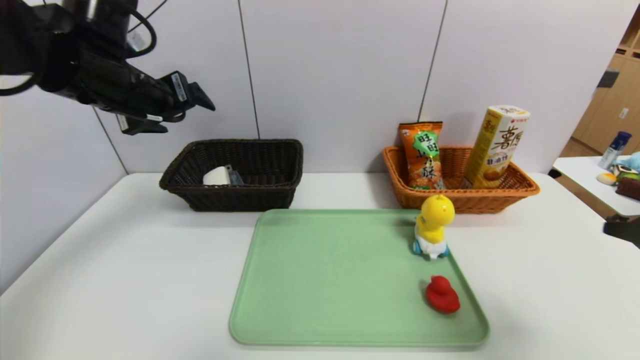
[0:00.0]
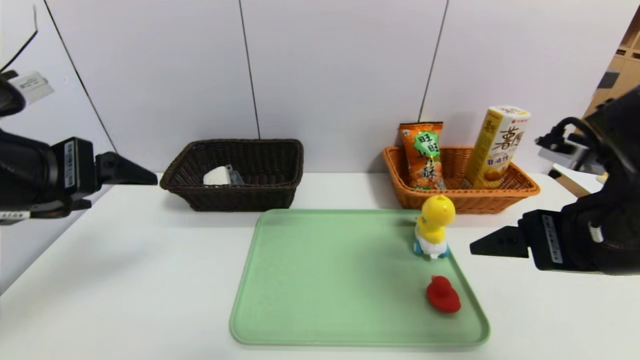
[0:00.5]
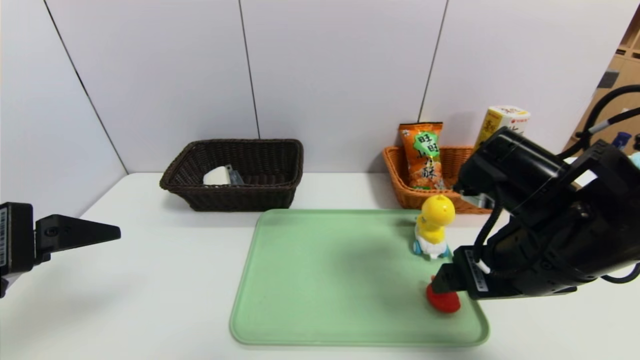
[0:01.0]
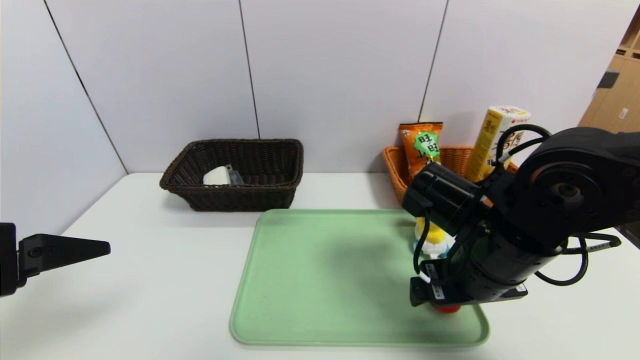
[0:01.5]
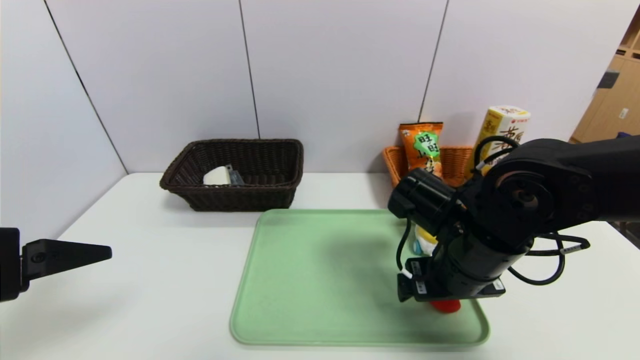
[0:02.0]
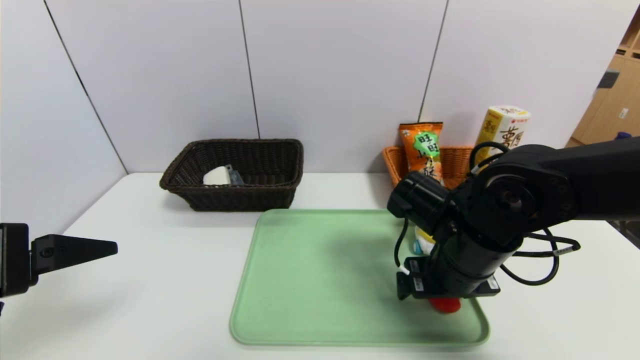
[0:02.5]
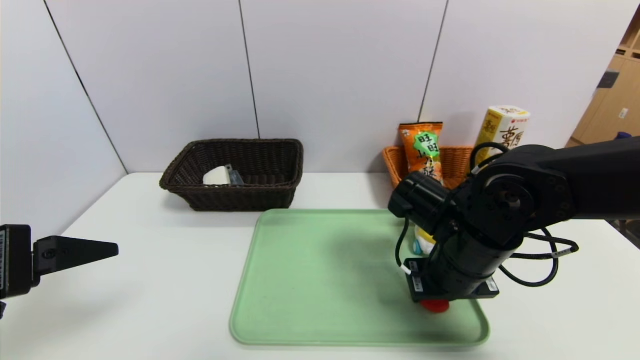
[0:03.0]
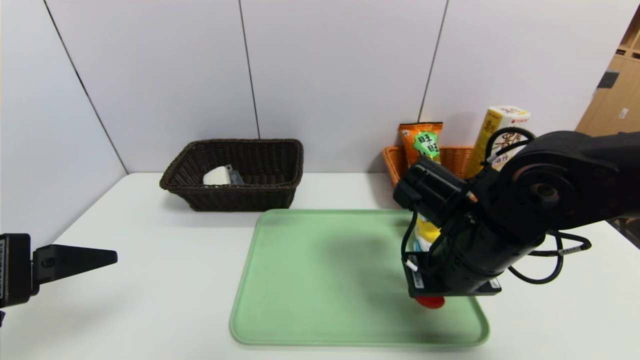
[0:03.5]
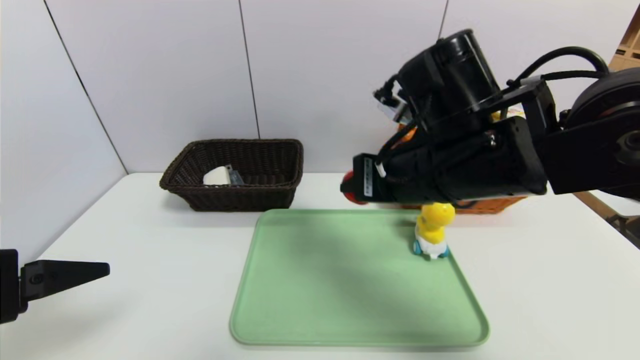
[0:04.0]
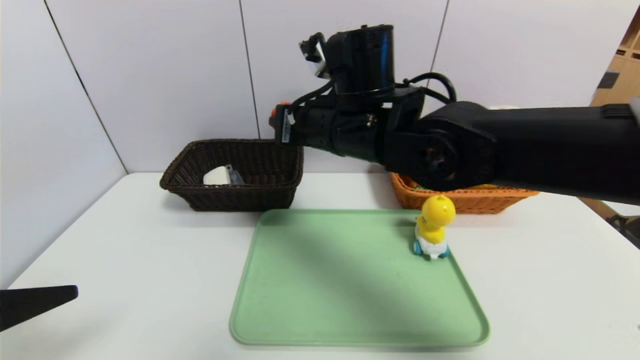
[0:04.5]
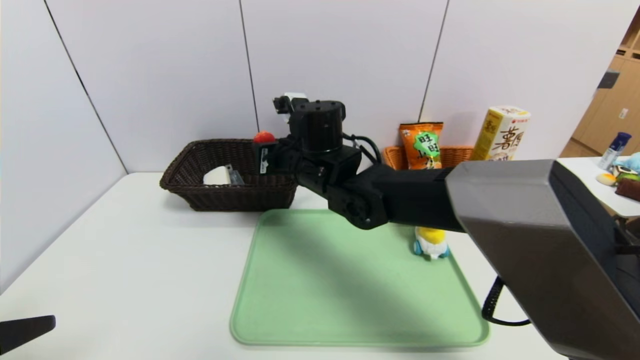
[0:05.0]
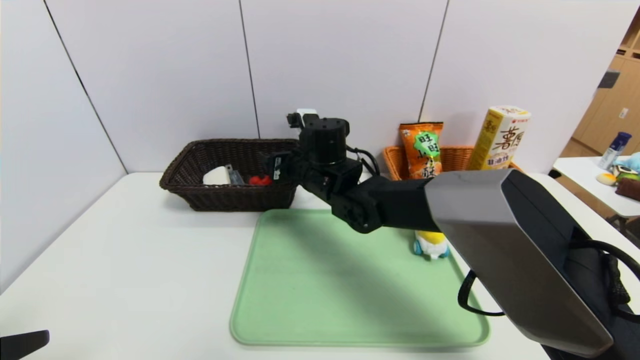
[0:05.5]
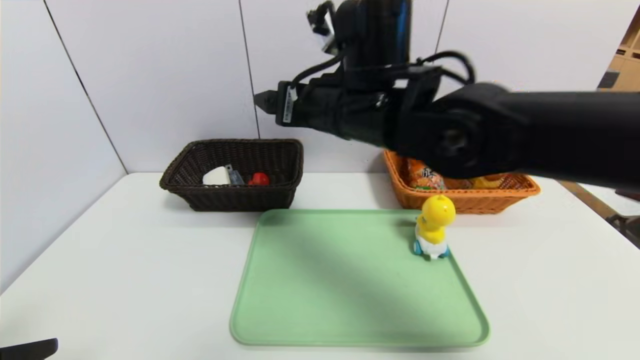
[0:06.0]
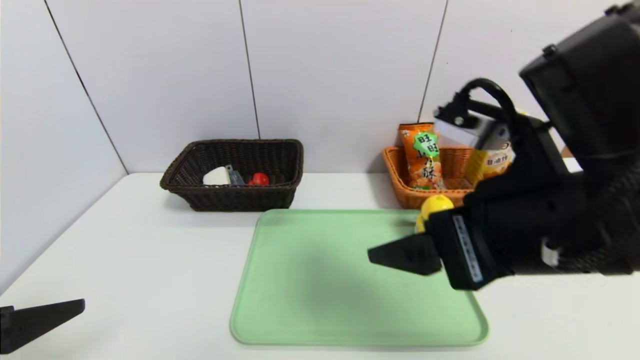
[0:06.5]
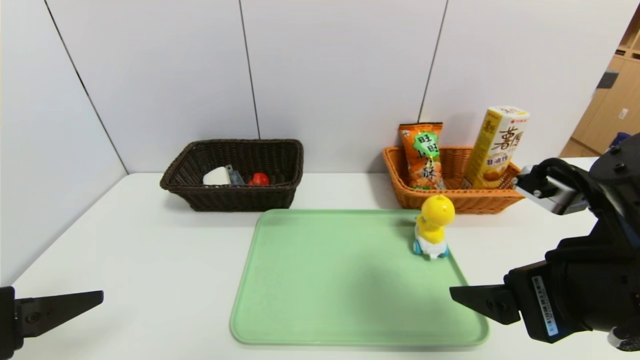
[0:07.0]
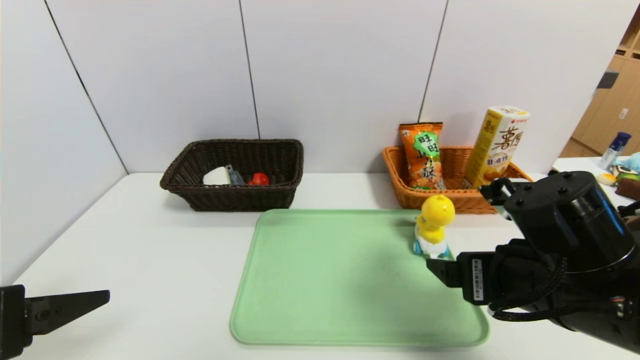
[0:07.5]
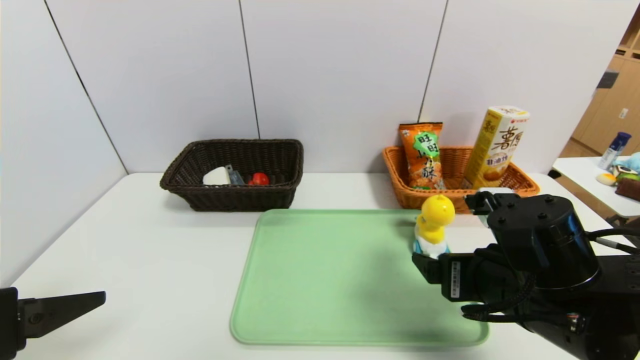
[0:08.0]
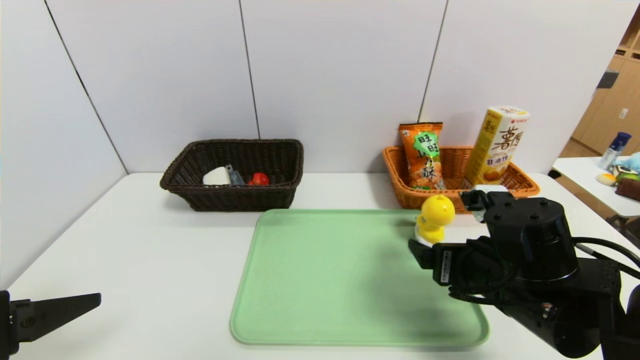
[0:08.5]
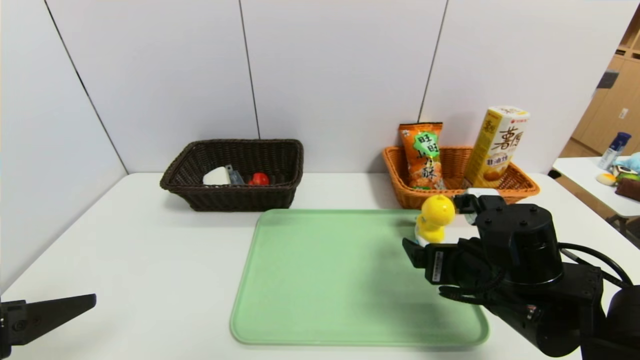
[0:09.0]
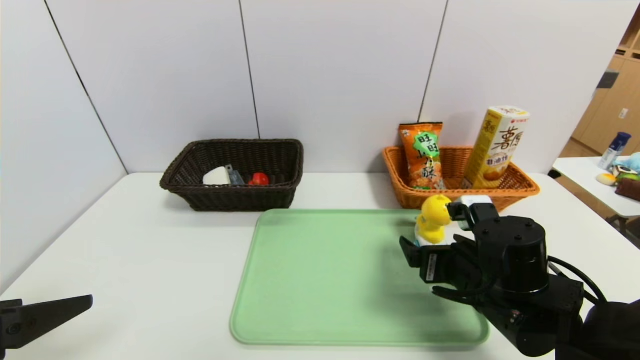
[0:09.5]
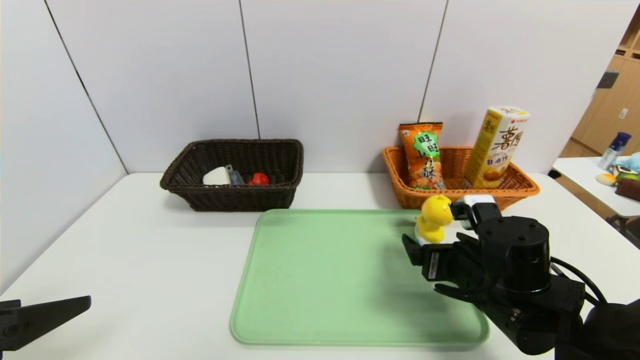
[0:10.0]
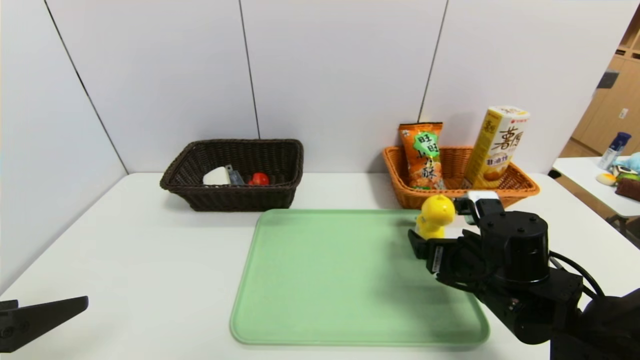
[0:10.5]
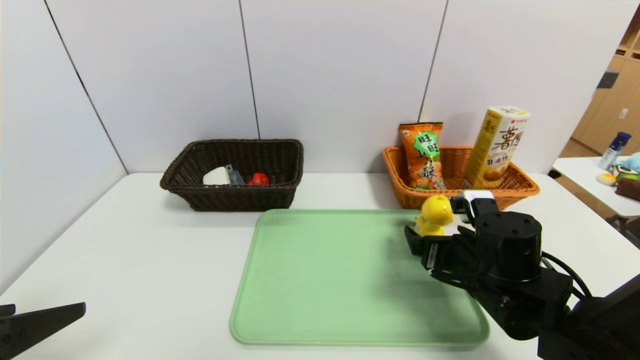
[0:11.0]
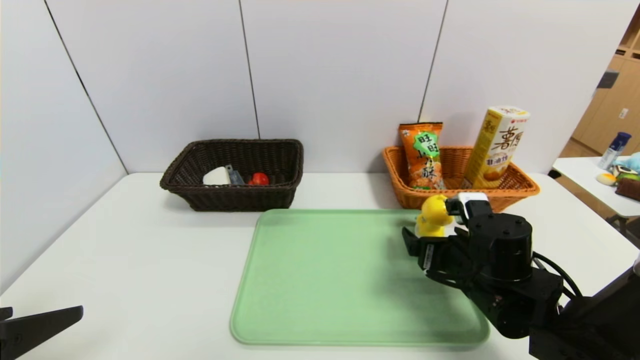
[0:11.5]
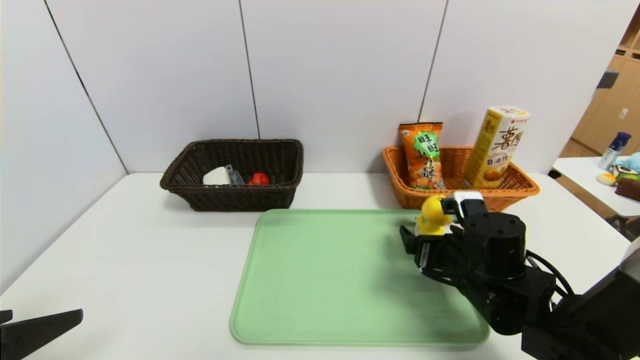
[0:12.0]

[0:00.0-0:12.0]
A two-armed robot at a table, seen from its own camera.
Task of the whole recording: place the food in the right basket with the right gripper, and place the non food items in the left basket with the left gripper.
Step, 0:00.0 to 0:05.5: Grasp the red duck and put it in the left basket.
0:00.0 to 0:02.0: The left gripper heads backward, covering some 20 cm, while the right gripper travels to the left, forward and downward by some 25 cm.
0:02.0 to 0:04.0: The right gripper moves upward, roughly 10 cm, and closes its fingers.
0:04.0 to 0:06.0: The right gripper travels to the left by about 5 cm, goes forward and returns, some 15 cm each way, and opens up, while the left gripper heads backward, covering some 5 cm.
0:06.0 to 0:08.0: The right gripper heads to the right, downward and backward, covering approximately 25 cm.
0:08.0 to 0:10.0: The right gripper moves downward, about 5 cm.
0:10.0 to 0:12.0: The grippers move only a little.

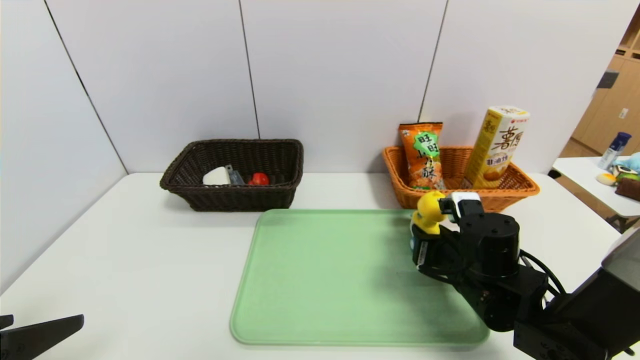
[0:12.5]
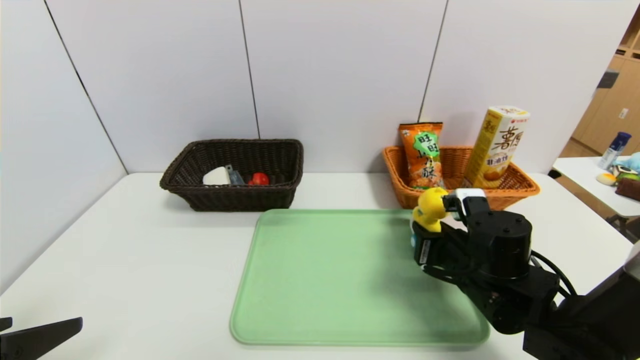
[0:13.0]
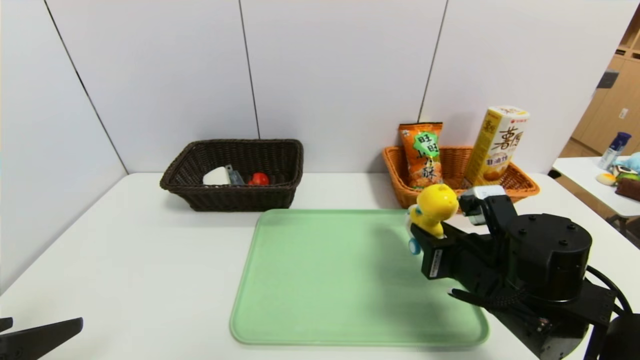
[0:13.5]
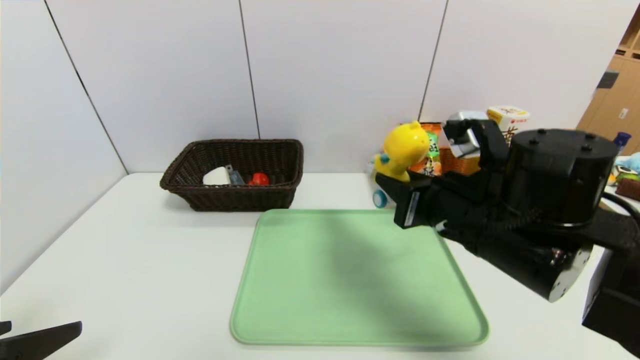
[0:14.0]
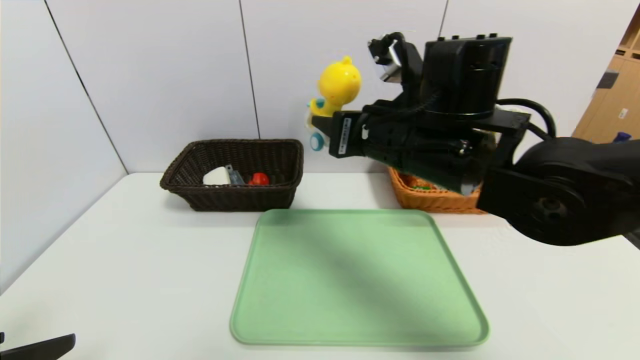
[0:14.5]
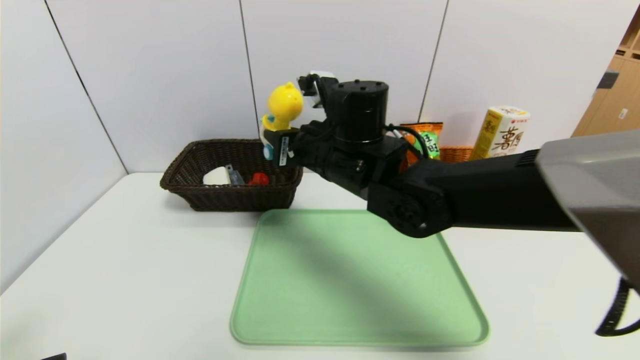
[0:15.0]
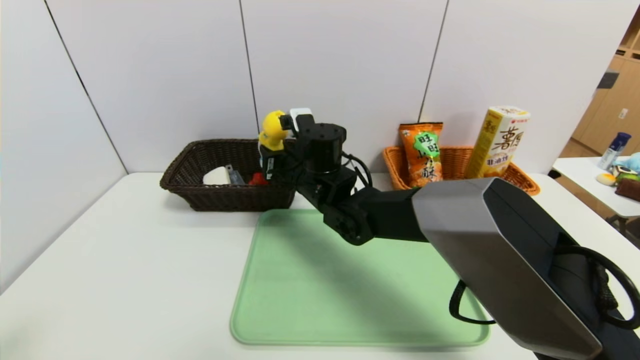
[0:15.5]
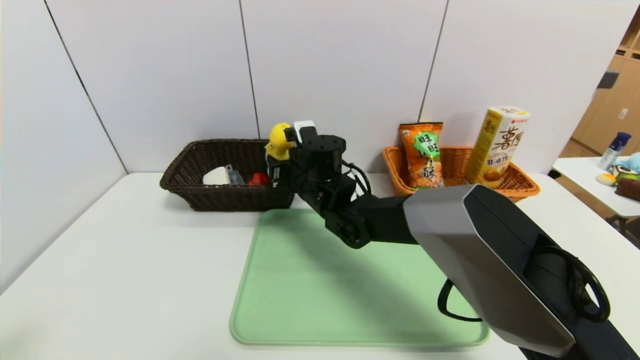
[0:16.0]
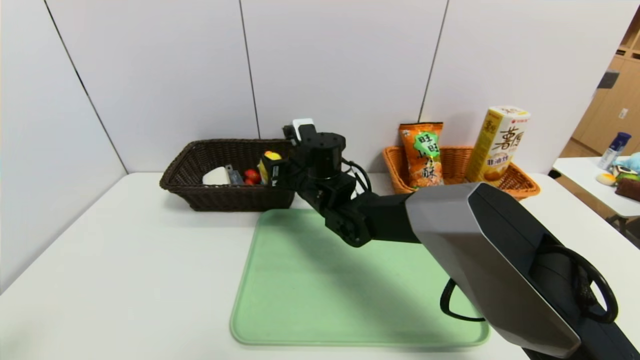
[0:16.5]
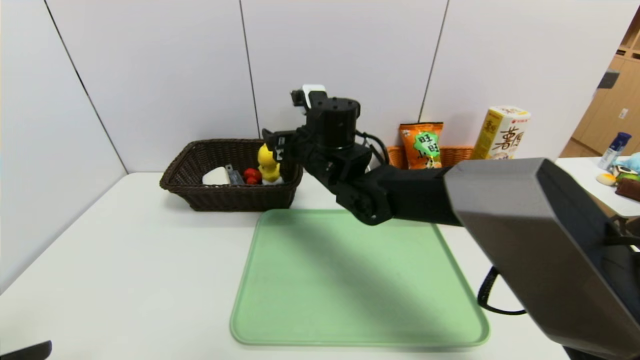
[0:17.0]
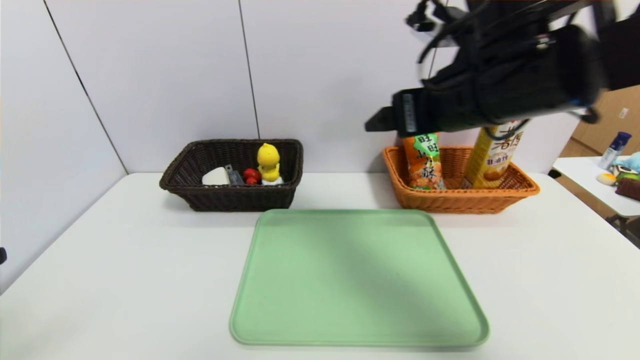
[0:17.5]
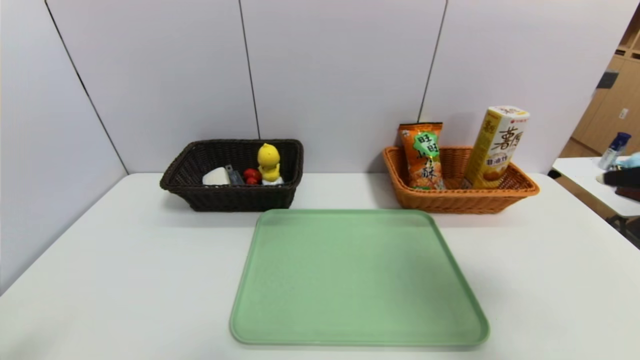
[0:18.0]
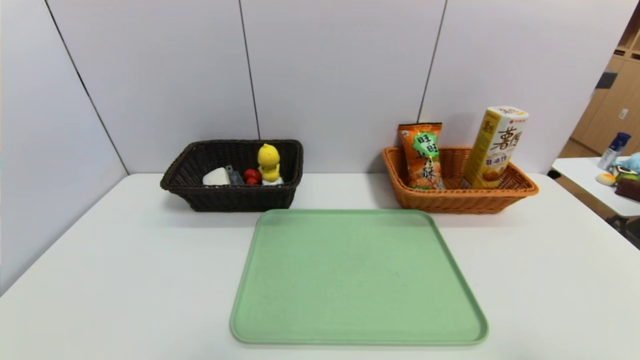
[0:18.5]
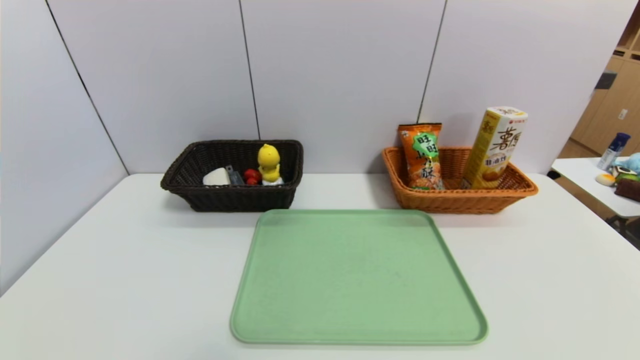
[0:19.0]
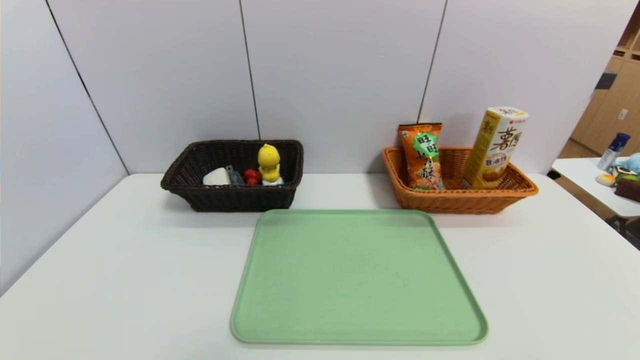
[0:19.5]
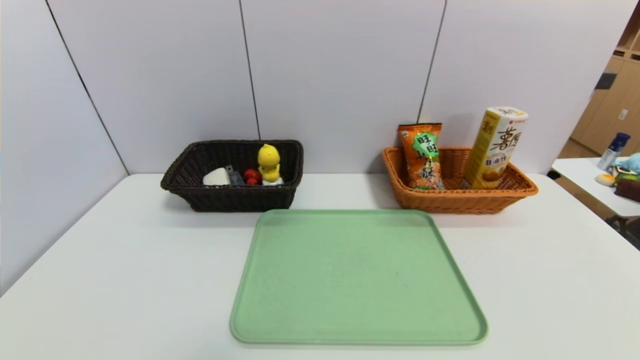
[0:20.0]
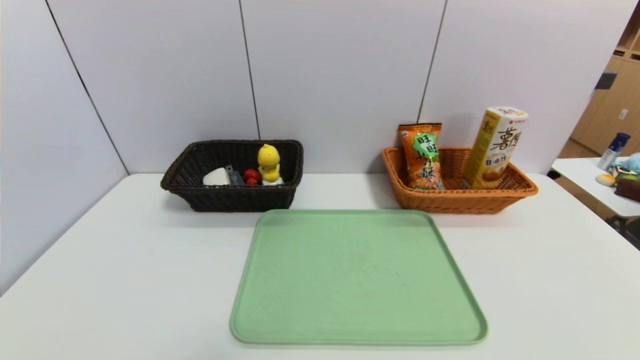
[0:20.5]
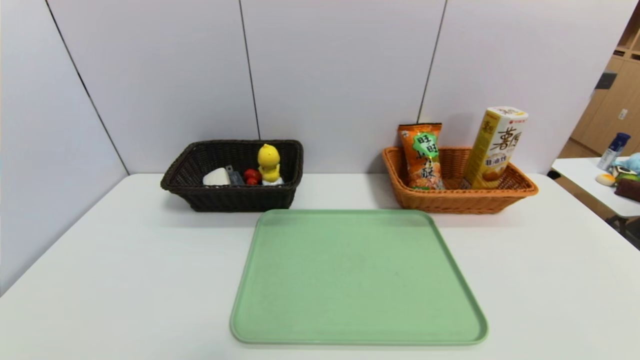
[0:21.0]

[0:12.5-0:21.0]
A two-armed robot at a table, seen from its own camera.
Task of the whole recording: place the food in the right basket with the right gripper, and place the non food items in the left basket with the left gripper.
0:12.5 to 0:14.5: The right gripper heads upward and to the left, covering roughly 20 cm.
0:14.5 to 0:16.5: The right gripper is displaced downward, forward and to the left by some 20 cm.
0:16.5 to 0:19.0: The left gripper moves backward, approximately 10 cm, and moves roughly 10 cm upward and comes back; the right gripper shifts some 60 cm backward and to the right, and opens up.
